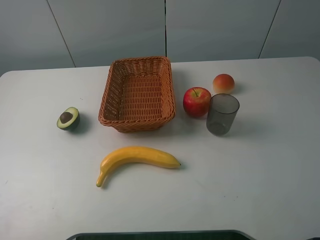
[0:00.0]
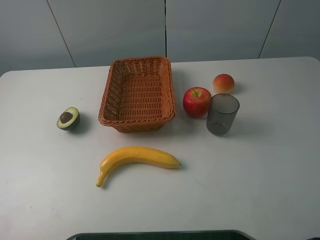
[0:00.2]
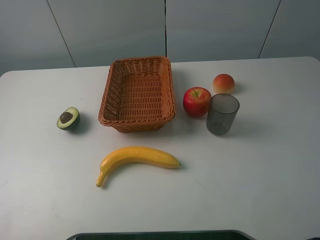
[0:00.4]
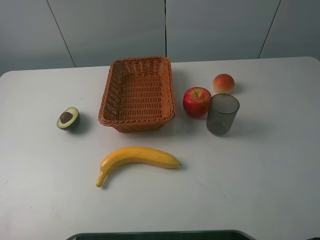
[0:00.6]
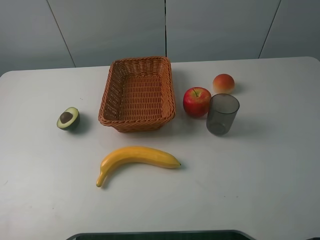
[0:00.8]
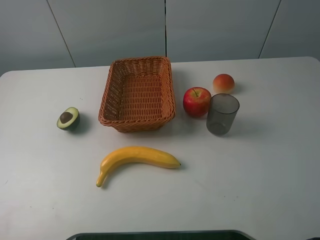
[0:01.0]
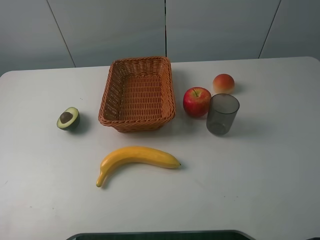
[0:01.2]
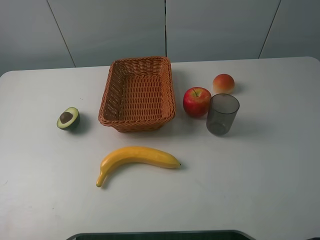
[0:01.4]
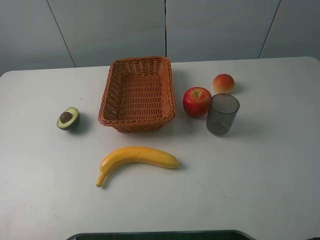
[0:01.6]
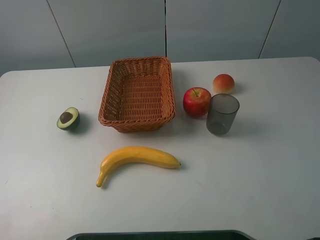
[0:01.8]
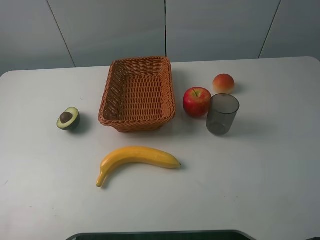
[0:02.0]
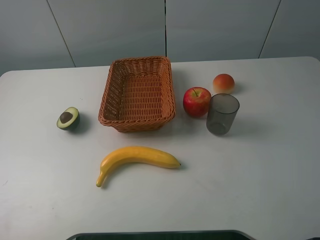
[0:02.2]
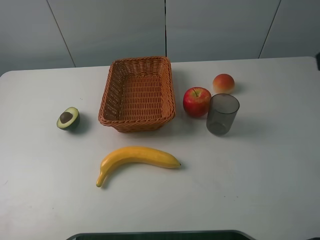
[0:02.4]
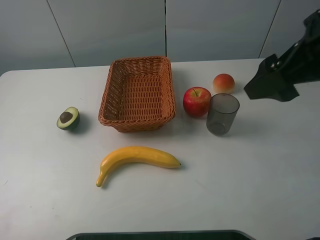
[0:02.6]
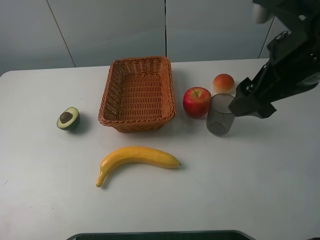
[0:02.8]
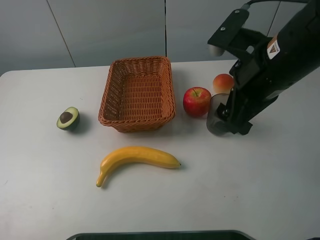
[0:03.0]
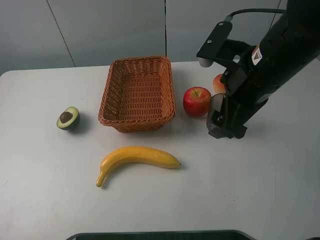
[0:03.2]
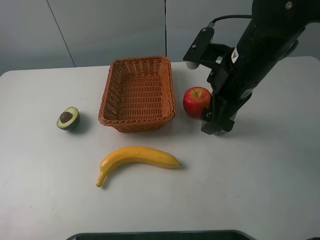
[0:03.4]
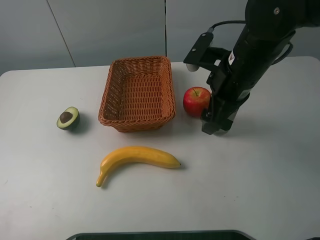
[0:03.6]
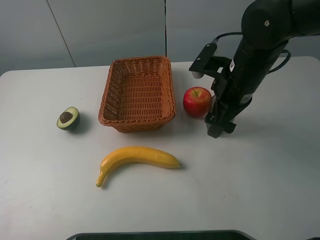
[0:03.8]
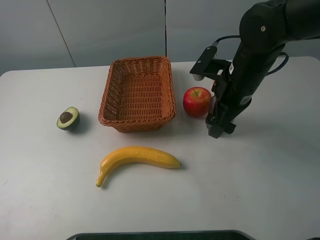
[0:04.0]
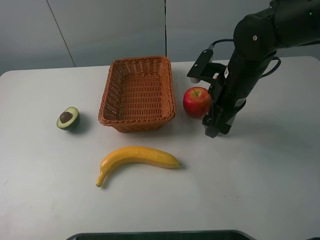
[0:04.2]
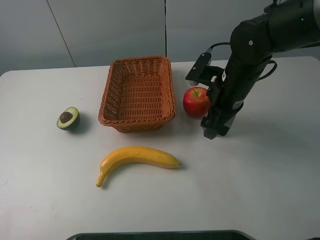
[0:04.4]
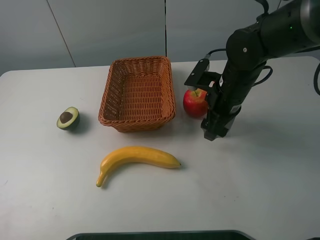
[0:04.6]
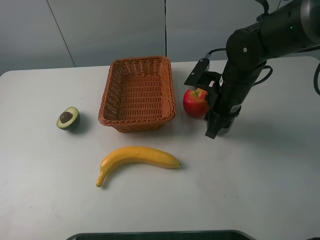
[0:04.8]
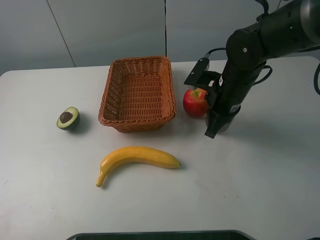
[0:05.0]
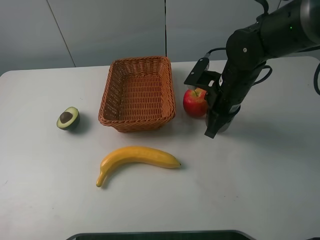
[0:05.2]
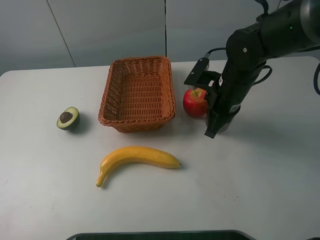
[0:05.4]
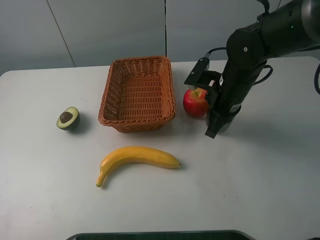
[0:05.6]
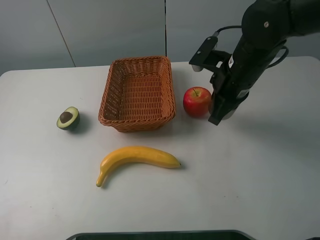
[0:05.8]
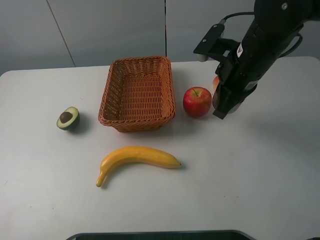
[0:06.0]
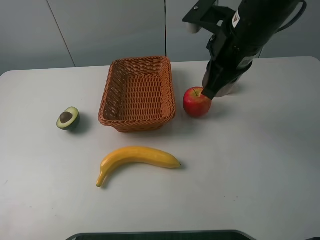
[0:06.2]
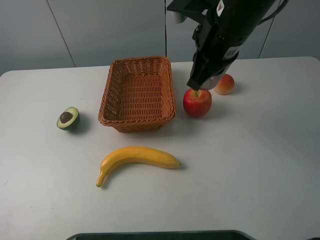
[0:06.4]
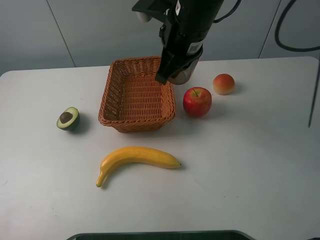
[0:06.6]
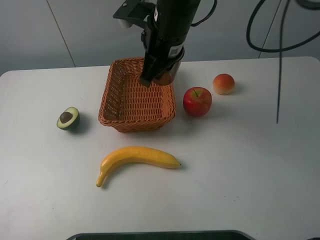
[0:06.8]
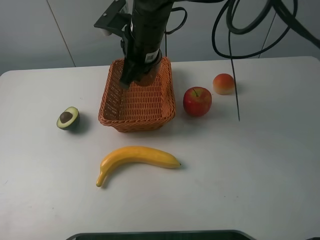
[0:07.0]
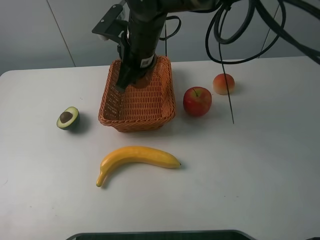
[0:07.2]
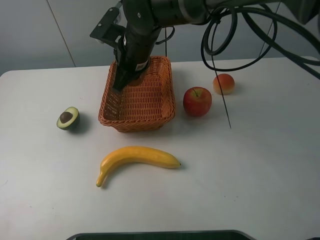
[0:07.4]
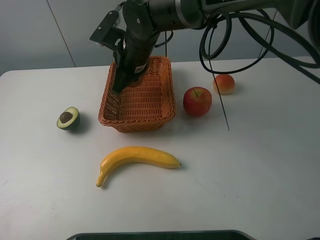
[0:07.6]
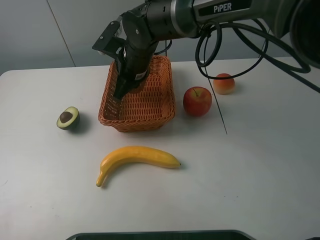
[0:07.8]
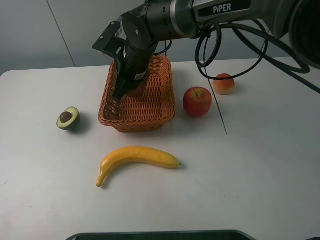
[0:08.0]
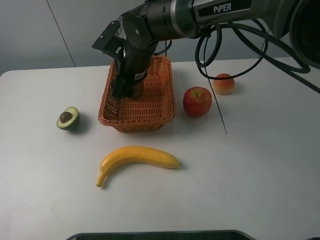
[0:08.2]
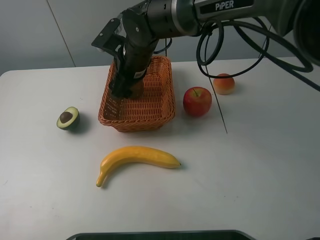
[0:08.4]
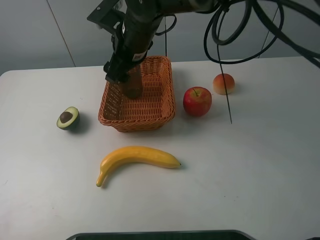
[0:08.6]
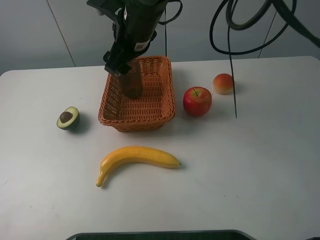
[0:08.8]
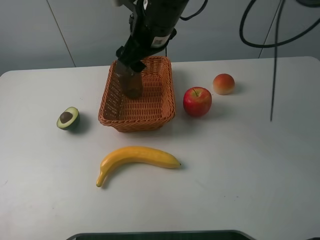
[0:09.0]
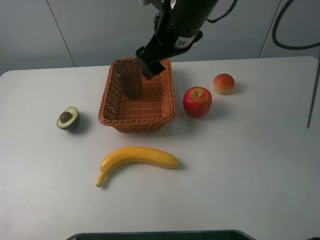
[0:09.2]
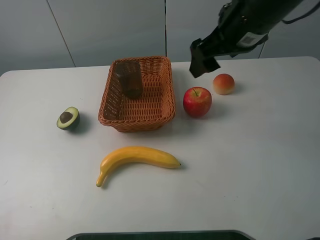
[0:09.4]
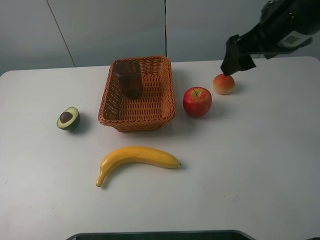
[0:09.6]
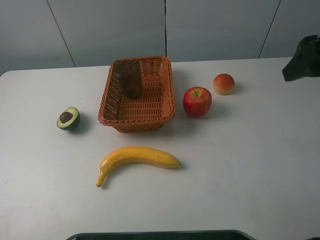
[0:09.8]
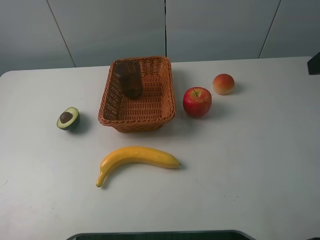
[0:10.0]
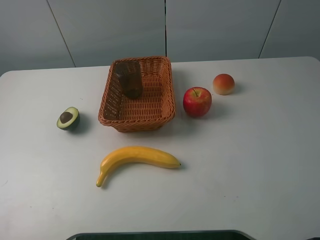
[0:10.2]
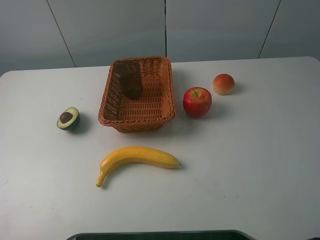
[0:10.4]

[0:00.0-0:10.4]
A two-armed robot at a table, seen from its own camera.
0:00.0 to 0:01.4: Both grippers stay about where they are.
0:01.4 to 0:03.0: The right gripper heads forward and to the left, covering some 25 cm.
0:03.0 to 0:04.4: The right gripper heads downward and forward, covering roughly 15 cm.
0:04.4 to 0:06.0: The right gripper moves upward, roughly 5 cm, and closes up.
0:06.0 to 0:07.4: The right gripper travels to the left and forward by roughly 20 cm.
0:07.4 to 0:09.0: The right gripper moves upward, some 5 cm, and opens its fingers.
0:09.0 to 0:10.4: The right gripper heads to the right and backward, covering about 35 cm.

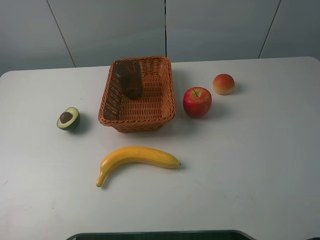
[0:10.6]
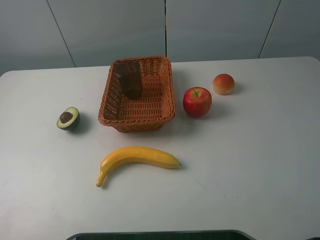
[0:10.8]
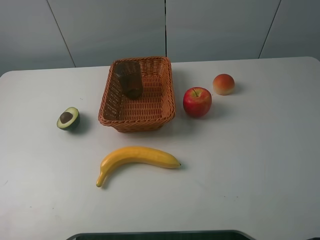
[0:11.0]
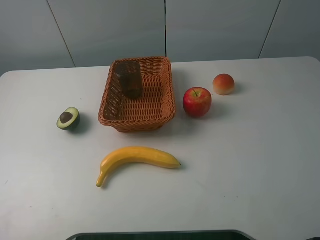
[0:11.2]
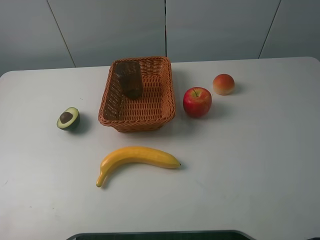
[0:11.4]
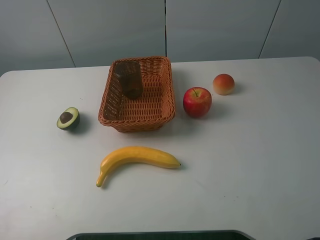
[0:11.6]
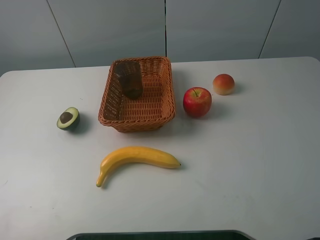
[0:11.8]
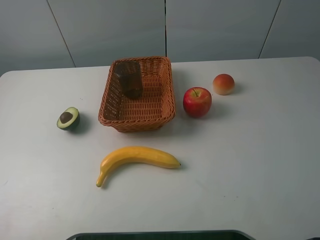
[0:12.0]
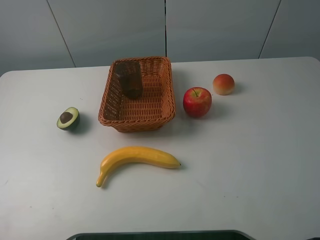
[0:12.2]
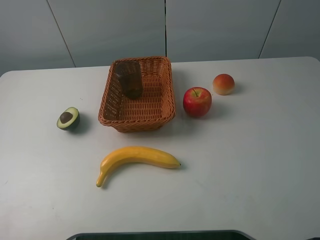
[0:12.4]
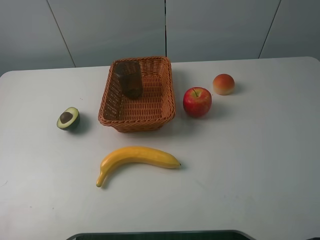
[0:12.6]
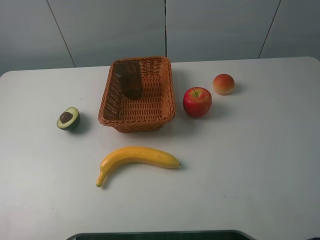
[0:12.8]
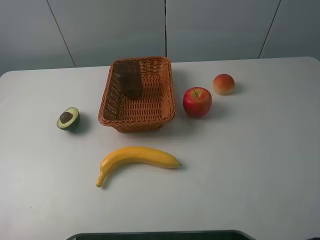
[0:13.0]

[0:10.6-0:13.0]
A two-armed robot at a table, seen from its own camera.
0:11.8 to 0:13.0: Neither gripper changes place.
